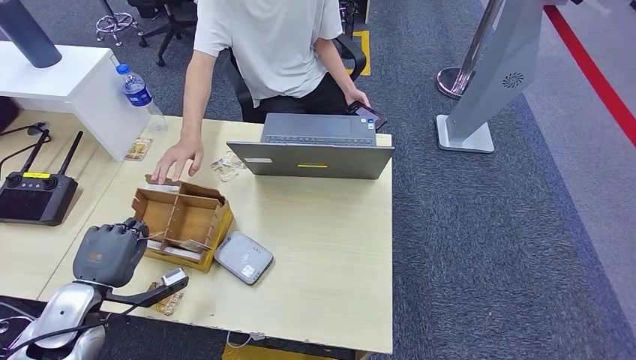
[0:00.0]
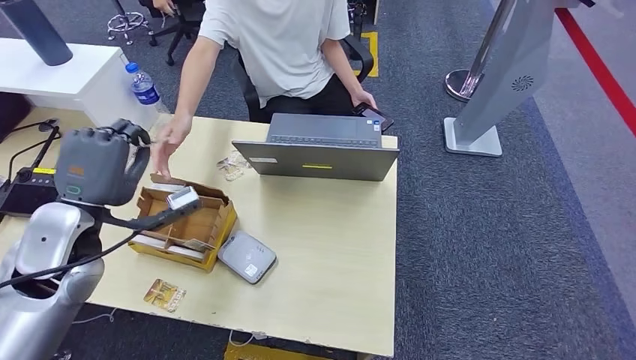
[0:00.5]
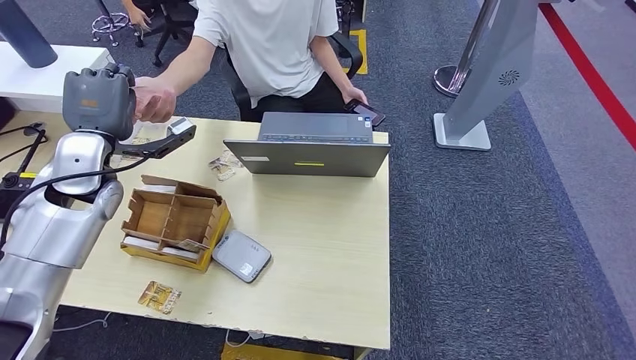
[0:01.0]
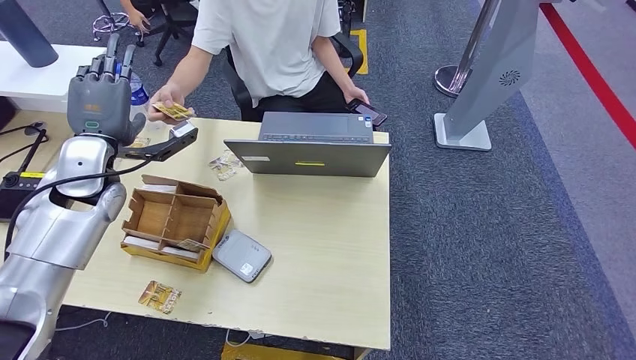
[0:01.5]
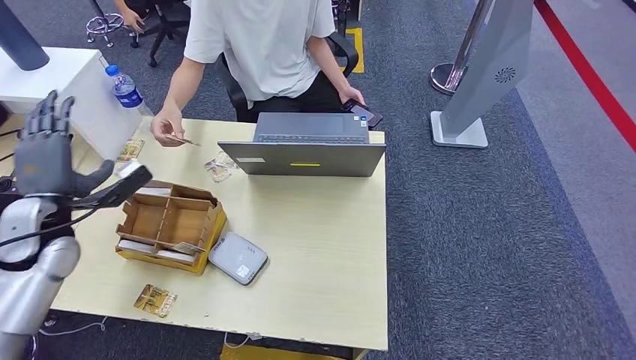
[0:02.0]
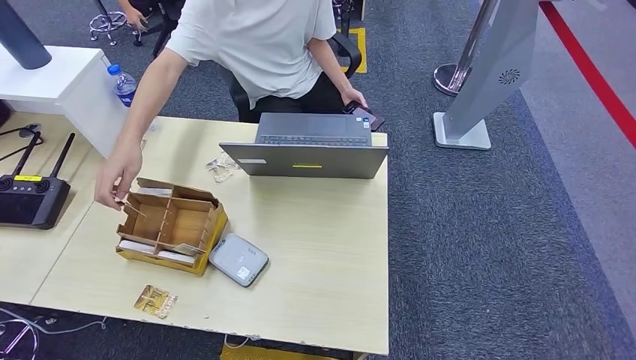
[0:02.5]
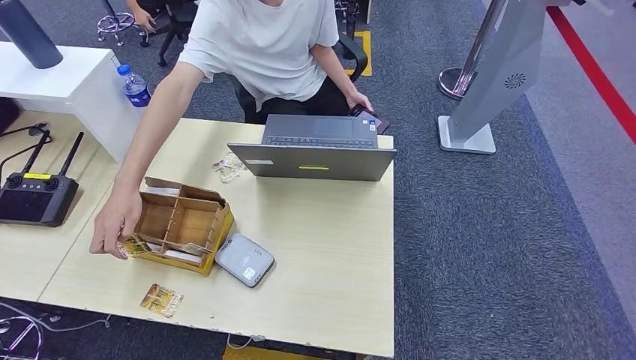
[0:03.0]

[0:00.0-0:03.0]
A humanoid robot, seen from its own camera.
Step, 0:01.0 to 0:03.0: Hand the room key to the person.
